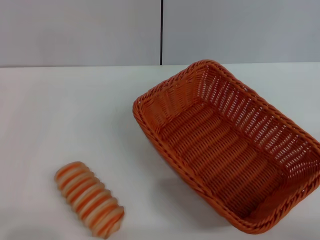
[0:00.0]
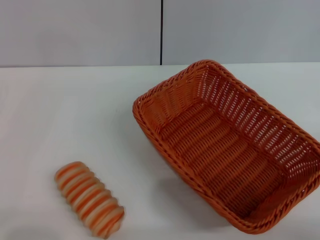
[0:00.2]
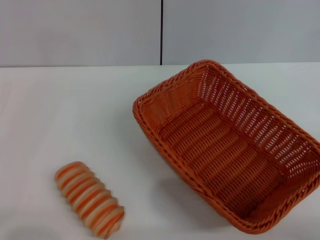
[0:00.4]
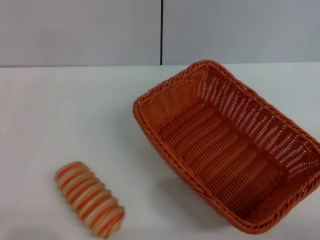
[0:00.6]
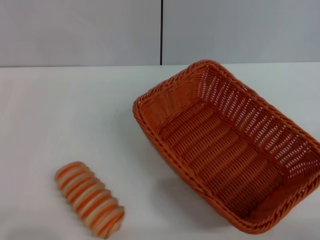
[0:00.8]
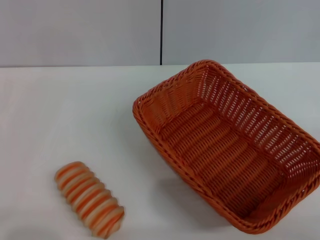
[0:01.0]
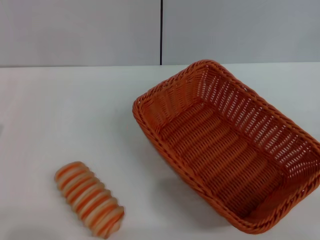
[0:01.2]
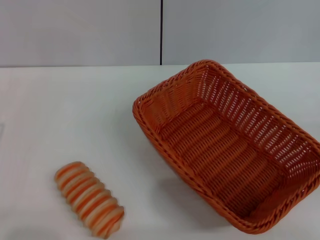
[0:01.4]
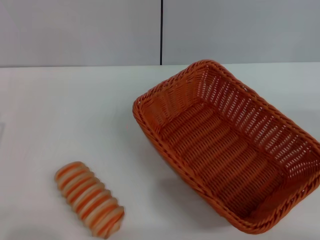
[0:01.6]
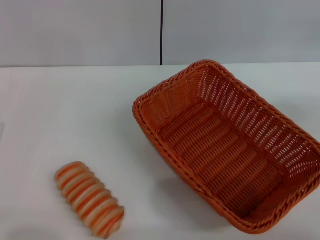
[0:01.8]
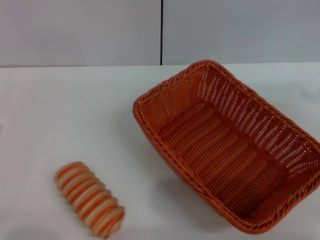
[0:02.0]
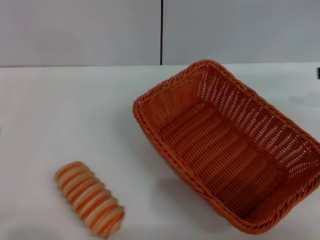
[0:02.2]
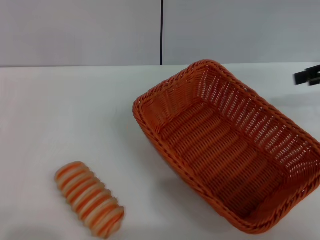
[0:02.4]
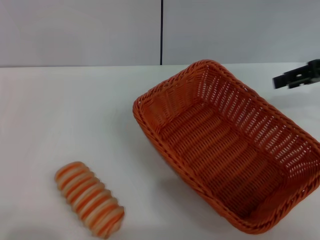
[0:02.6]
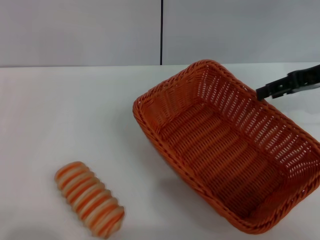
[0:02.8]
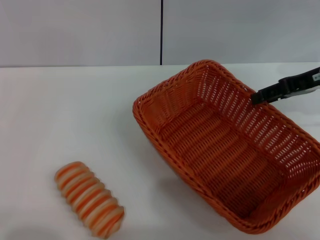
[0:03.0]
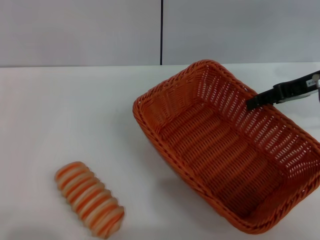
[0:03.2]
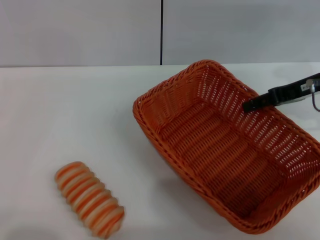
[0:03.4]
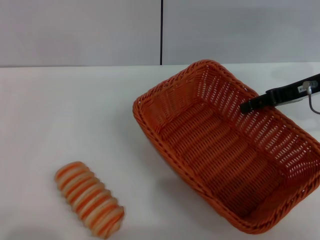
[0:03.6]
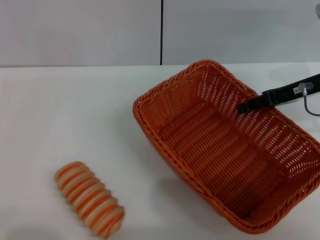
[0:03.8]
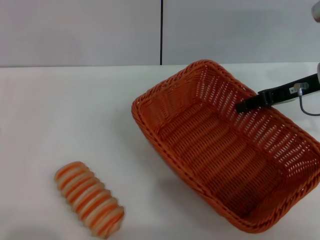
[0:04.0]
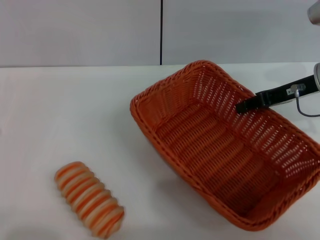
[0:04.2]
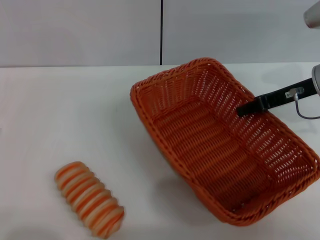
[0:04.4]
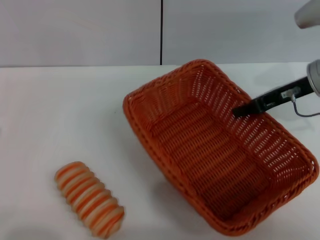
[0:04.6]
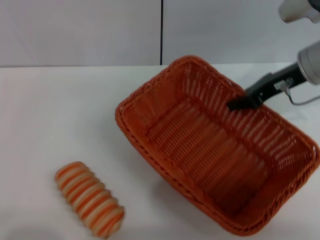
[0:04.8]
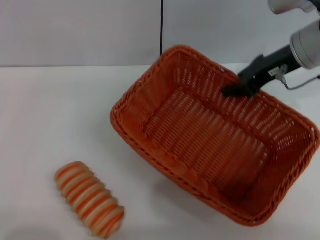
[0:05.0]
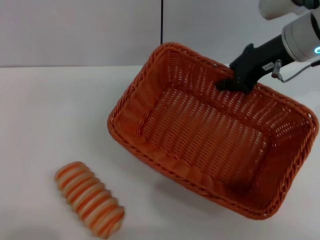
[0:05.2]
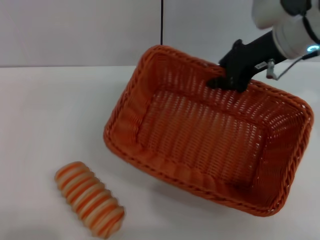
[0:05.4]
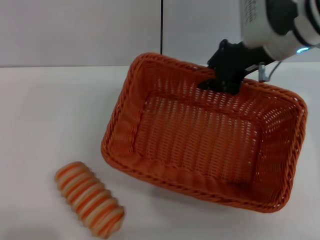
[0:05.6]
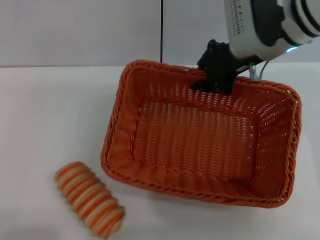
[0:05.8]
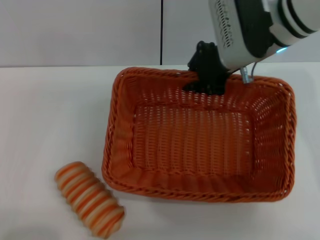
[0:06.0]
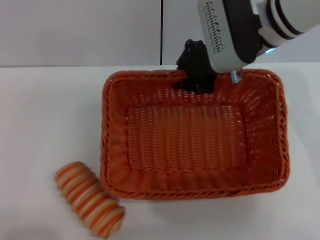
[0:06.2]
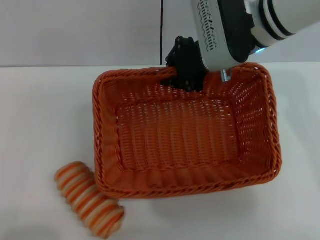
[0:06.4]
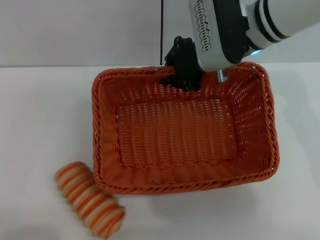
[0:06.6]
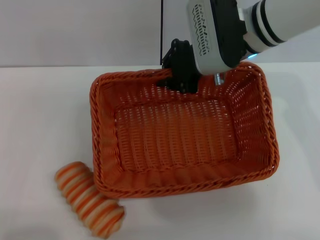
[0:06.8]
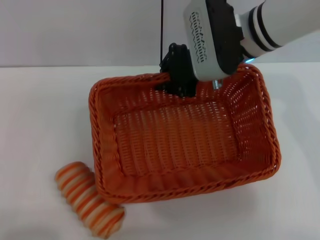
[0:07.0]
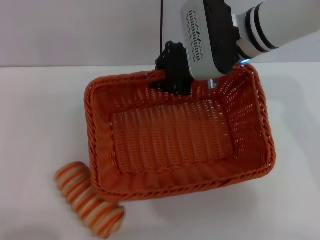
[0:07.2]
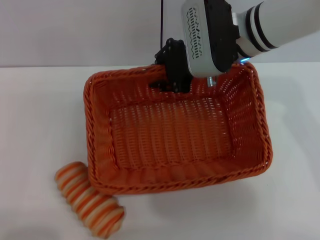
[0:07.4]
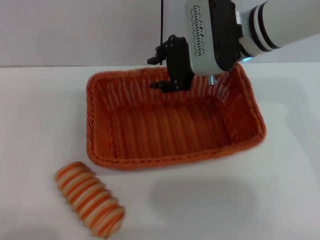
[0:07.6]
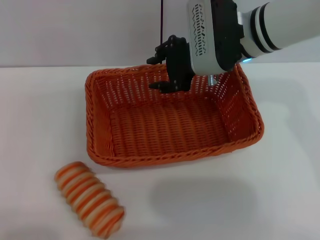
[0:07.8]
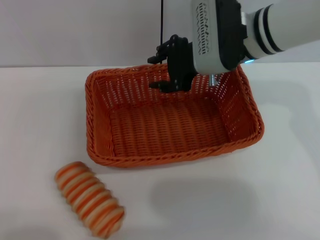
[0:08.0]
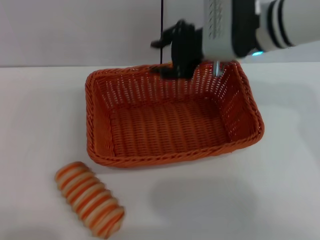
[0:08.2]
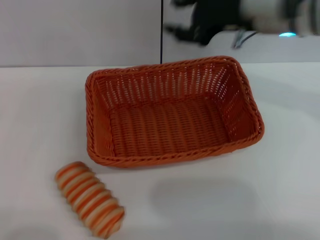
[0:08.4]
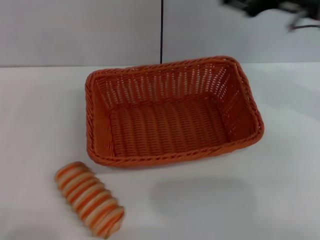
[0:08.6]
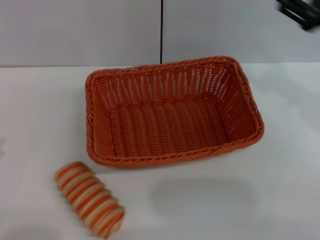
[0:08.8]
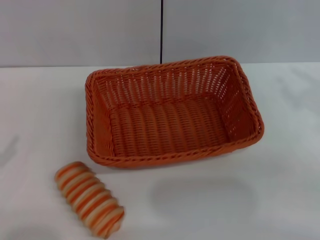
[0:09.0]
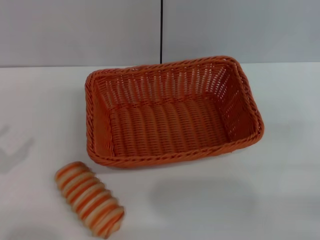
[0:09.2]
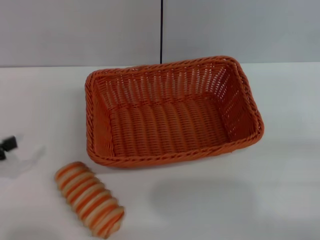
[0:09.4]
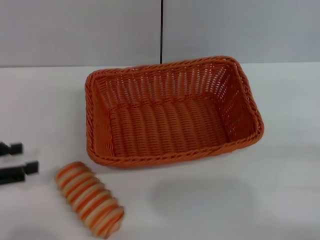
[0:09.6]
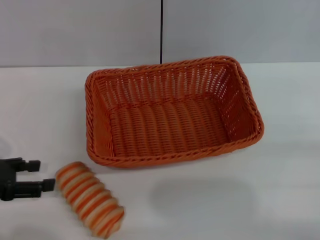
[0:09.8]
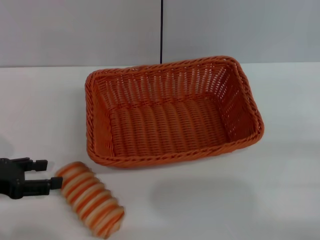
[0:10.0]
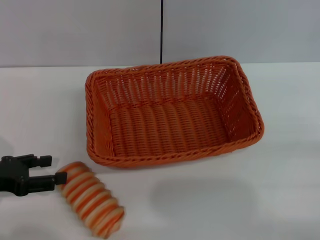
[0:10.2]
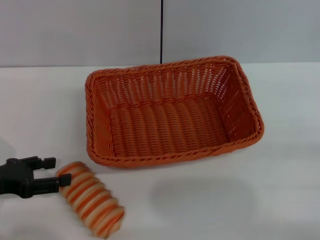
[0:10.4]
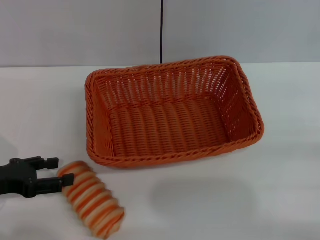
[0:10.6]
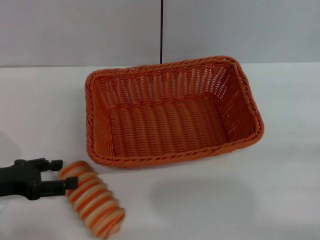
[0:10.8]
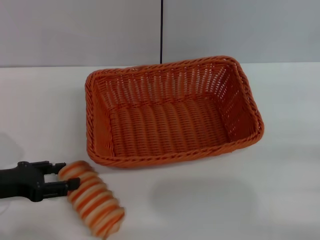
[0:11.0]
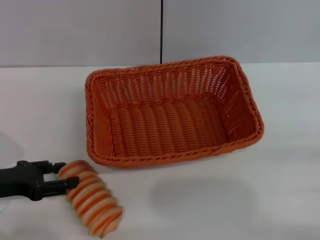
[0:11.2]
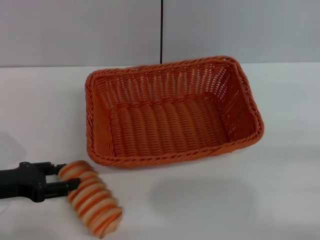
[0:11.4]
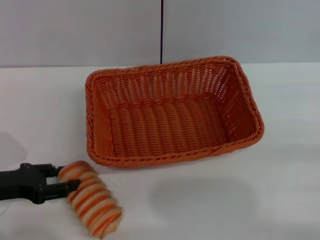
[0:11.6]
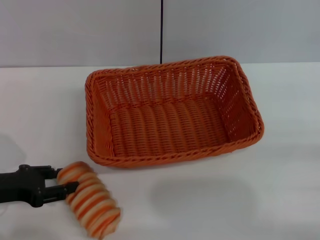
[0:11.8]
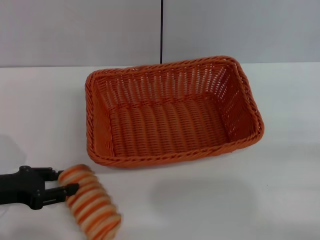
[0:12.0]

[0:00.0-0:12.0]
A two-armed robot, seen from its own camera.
Step, 0:05.4 to 0:08.4: Place the light basket in the center of view with the left gripper.
0:01.6 to 0:03.0: The right gripper heads to the left and forward, covering approximately 20 cm.
0:03.0 to 0:04.4: The right gripper closes its fingers.
0:04.4 to 0:06.0: The left gripper is displaced backward by about 5 cm; the right gripper goes some 15 cm to the left and upward.
0:06.0 to 0:07.6: The right gripper opens.
0:07.6 to 0:09.0: The right gripper shifts roughly 25 cm to the right and backward. The left gripper heads upward and to the left, covering roughly 10 cm.
0:09.0 to 0:10.4: The left gripper is displaced forward and to the right by roughly 10 cm.
0:10.4 to 0:12.0: The left gripper closes.

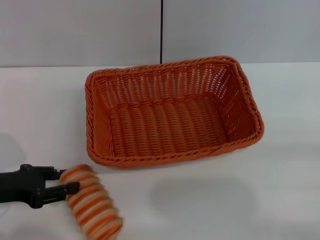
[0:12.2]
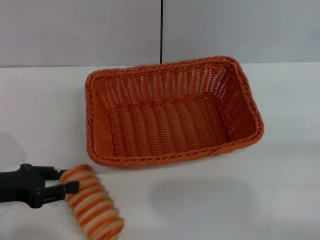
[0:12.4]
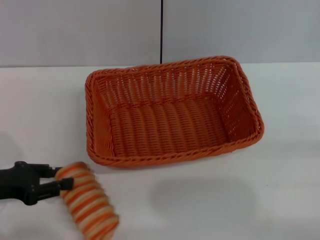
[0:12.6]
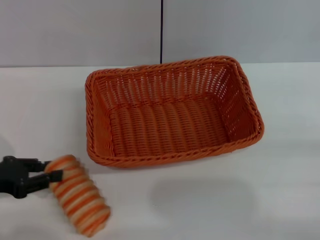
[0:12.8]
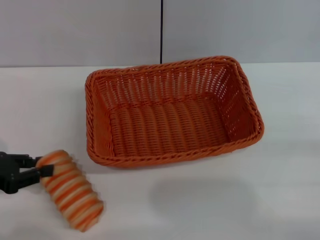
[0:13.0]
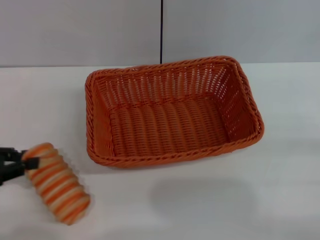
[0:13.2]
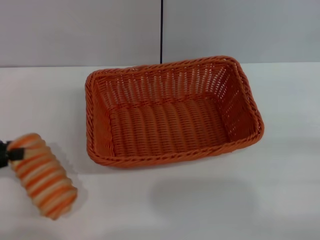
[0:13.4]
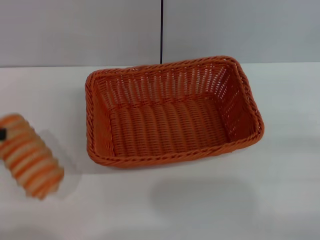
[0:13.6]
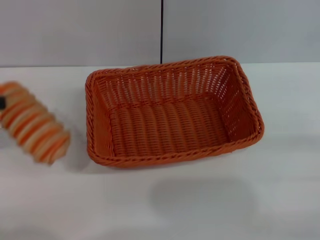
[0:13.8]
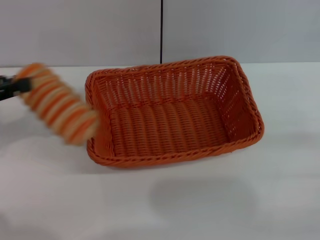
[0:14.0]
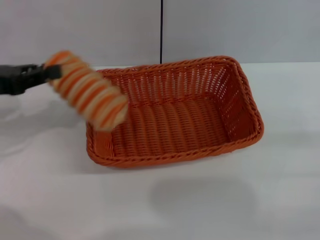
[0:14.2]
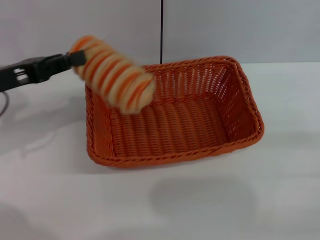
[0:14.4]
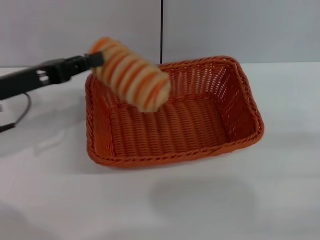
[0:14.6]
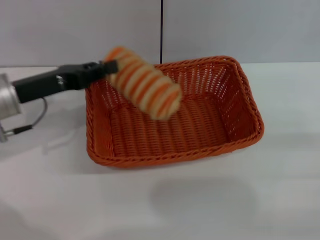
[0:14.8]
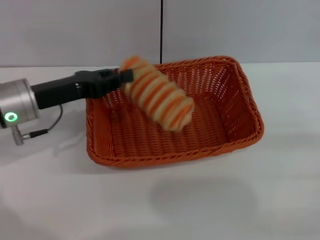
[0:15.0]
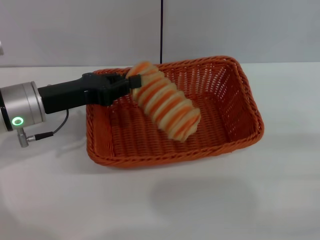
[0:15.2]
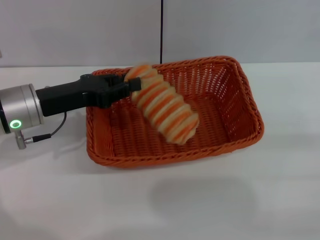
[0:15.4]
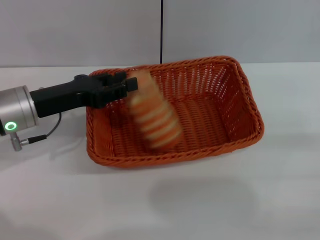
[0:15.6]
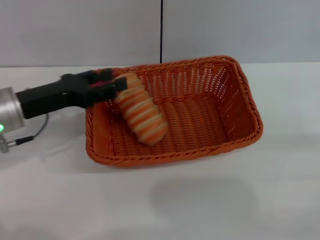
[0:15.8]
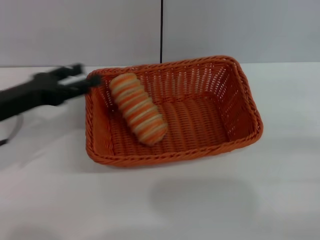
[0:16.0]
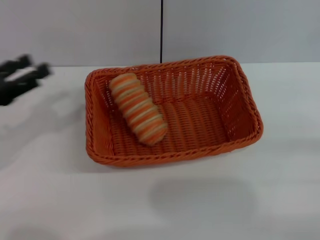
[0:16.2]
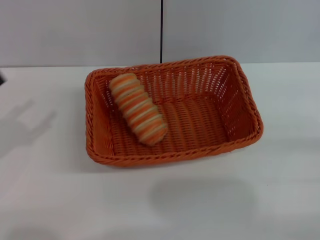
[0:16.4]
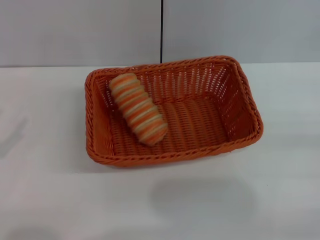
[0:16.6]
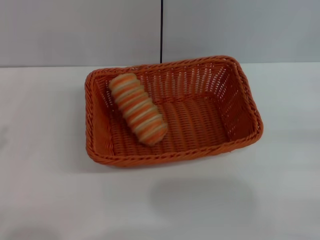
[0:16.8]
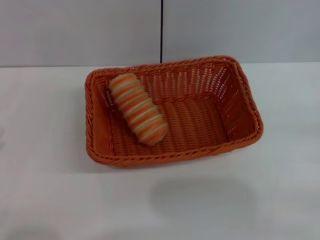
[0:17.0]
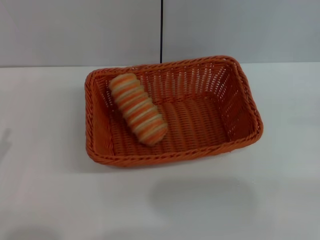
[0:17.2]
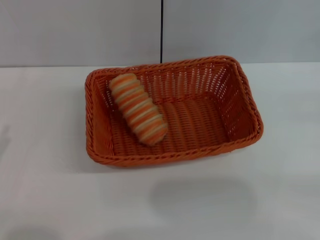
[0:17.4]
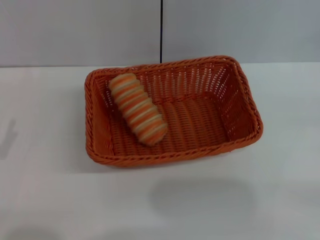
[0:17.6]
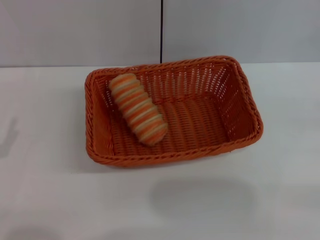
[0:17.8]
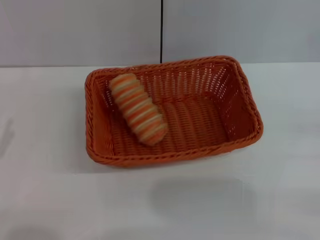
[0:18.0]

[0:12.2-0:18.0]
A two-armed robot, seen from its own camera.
0:12.2 to 0:13.6: The left gripper goes roughly 10 cm upward and to the left, and closes.
0:13.6 to 0:15.0: The left gripper travels to the right and forward by some 20 cm.
0:15.0 to 0:16.6: The left gripper shifts roughly 20 cm backward and to the left, and opens its fingers.

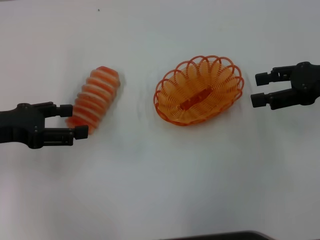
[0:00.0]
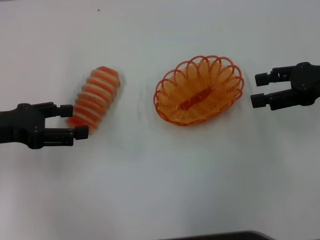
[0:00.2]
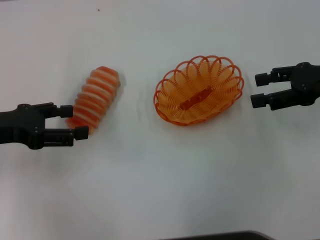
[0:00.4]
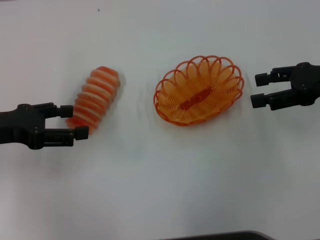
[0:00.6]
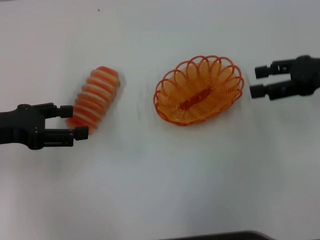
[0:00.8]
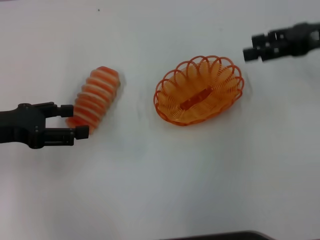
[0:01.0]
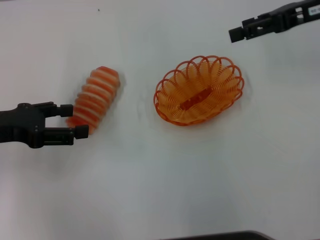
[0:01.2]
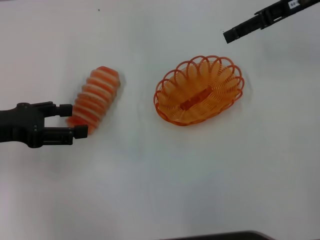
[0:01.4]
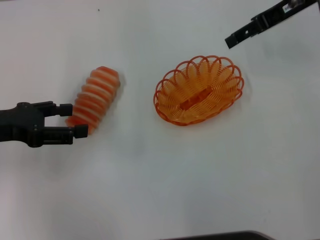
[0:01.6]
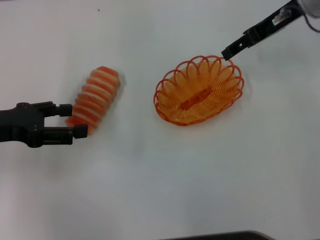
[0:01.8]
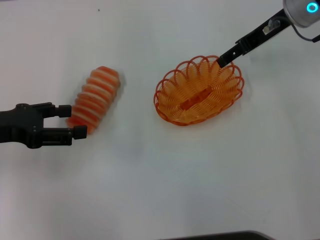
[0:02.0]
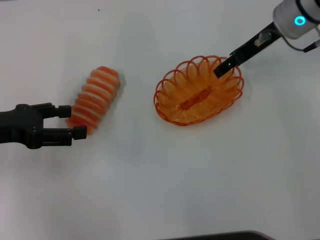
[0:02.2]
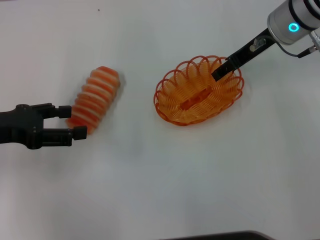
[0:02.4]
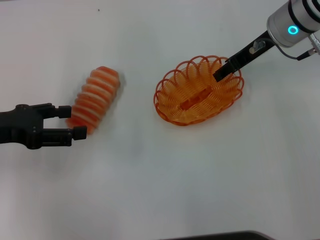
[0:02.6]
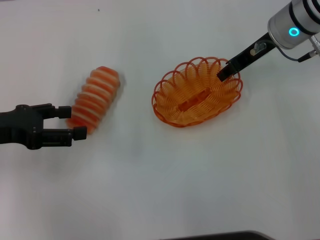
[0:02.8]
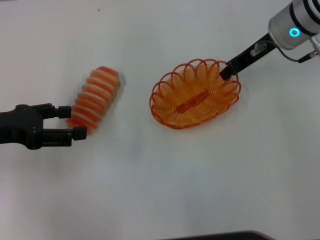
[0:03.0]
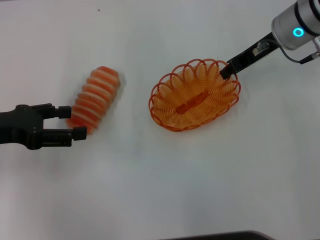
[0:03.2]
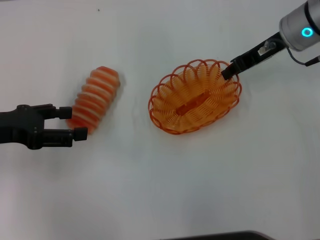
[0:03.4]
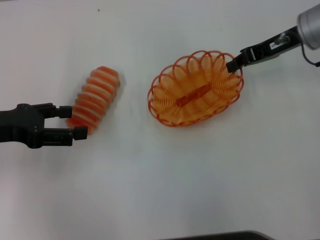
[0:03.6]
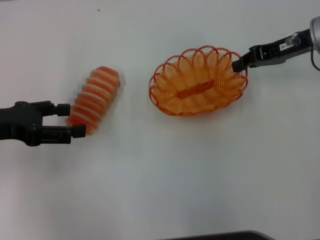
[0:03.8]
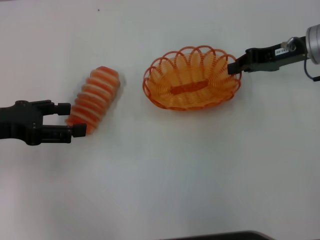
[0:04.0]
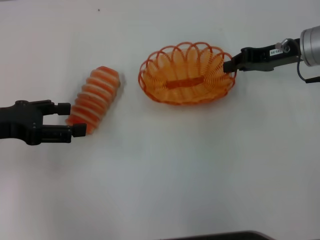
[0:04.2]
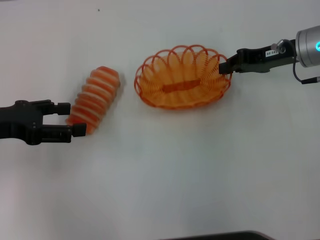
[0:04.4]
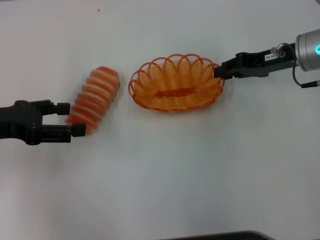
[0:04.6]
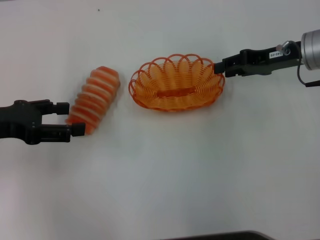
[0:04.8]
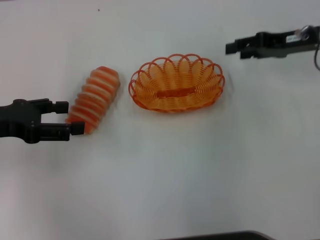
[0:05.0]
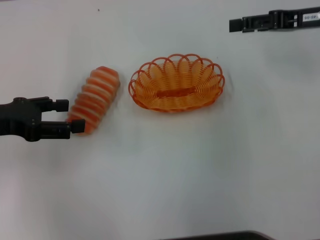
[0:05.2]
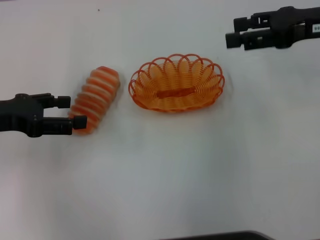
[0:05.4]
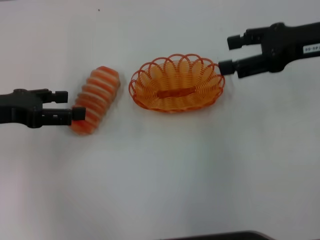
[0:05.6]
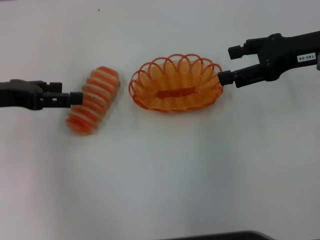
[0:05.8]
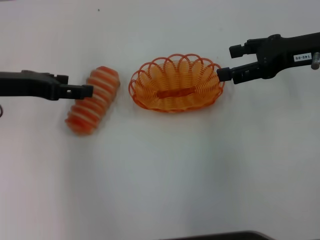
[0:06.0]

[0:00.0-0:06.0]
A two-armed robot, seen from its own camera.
Step, 0:00.0 to 0:03.8: Pick up the basket with the right gripper.
Step, 0:04.0 to 0:04.8: Place the basket in the center of view with the right gripper.
0:00.0 to 0:01.6: The right gripper goes about 15 cm forward, to the left and upward.
0:01.6 to 0:03.0: The right gripper goes about 5 cm downward, and closes up.
0:03.0 to 0:04.4: The right gripper shifts some 5 cm to the right.
0:04.4 to 0:06.0: The left gripper changes place by about 5 cm, while the right gripper shifts about 5 cm upward, and opens up.
